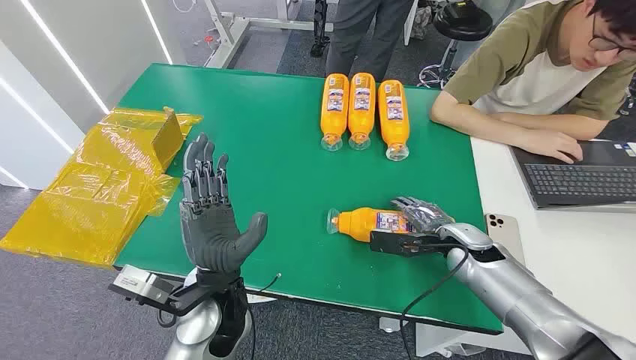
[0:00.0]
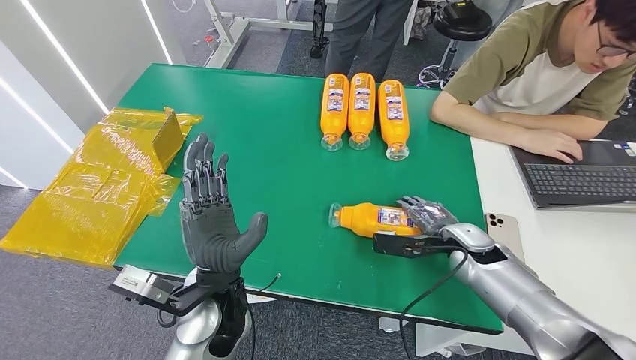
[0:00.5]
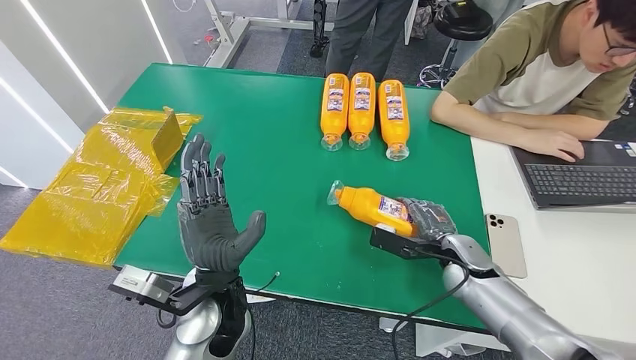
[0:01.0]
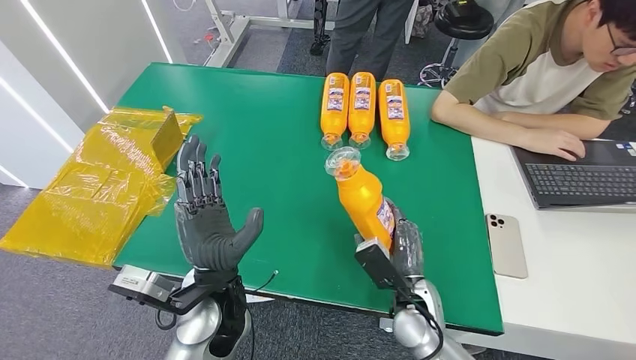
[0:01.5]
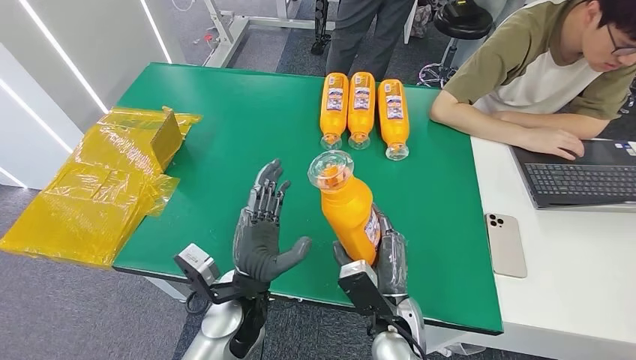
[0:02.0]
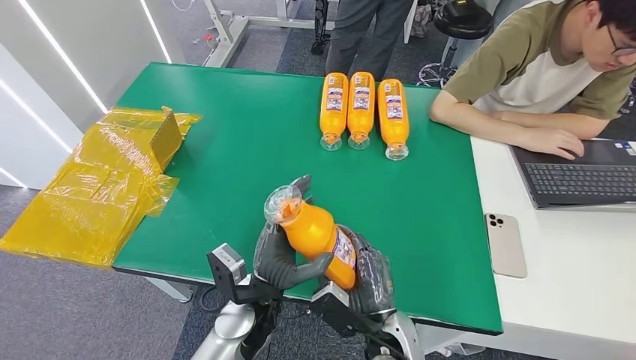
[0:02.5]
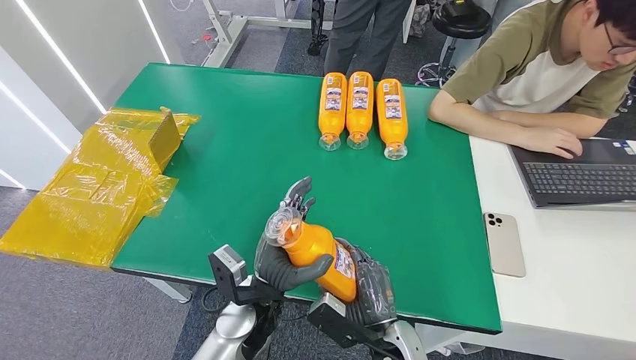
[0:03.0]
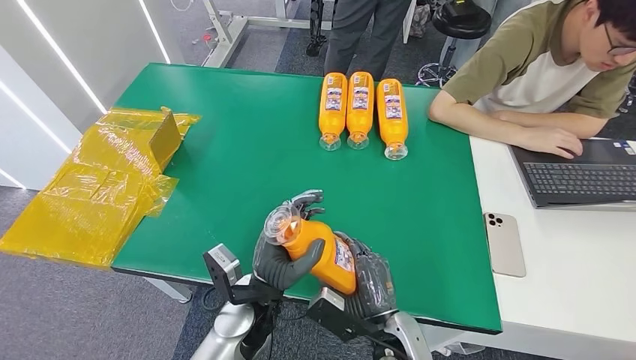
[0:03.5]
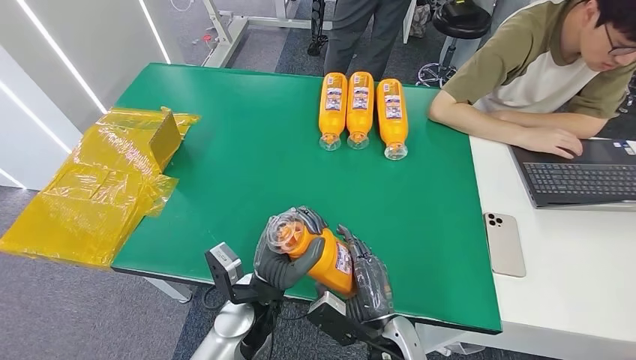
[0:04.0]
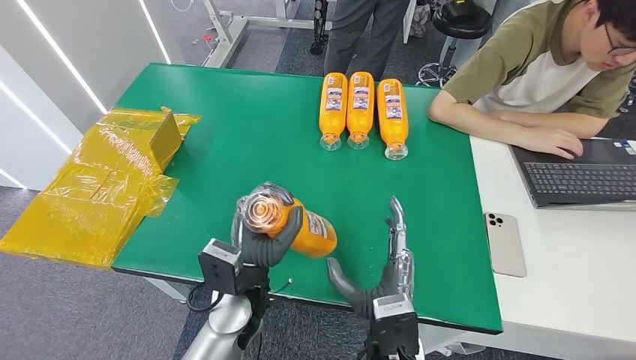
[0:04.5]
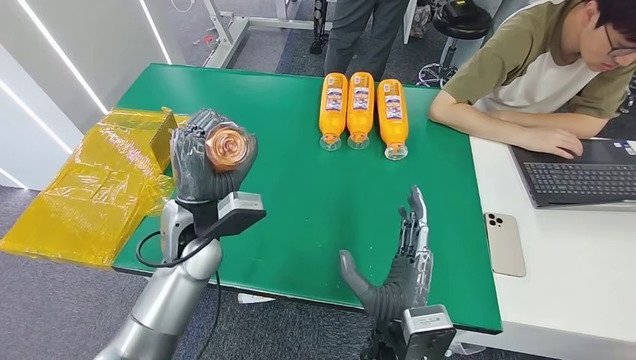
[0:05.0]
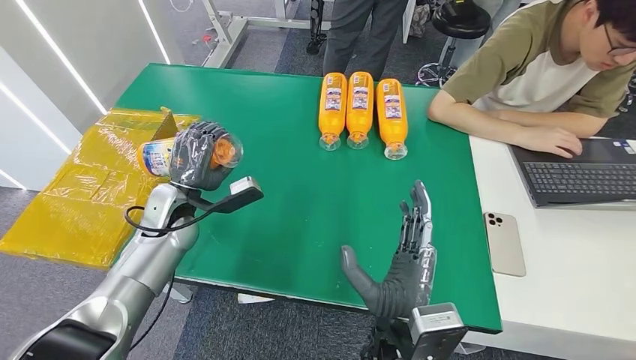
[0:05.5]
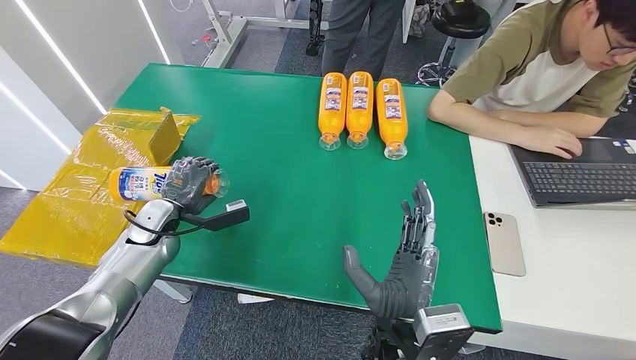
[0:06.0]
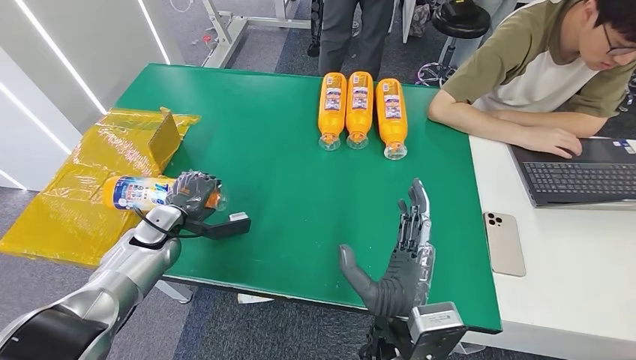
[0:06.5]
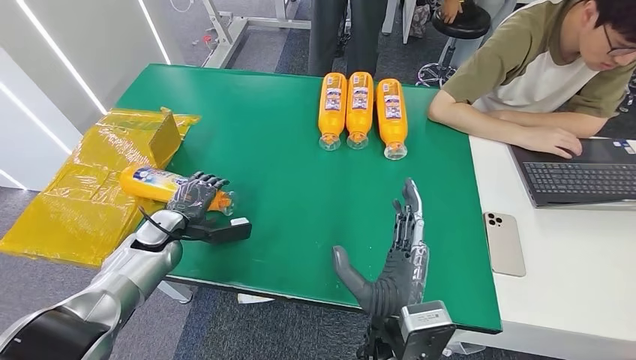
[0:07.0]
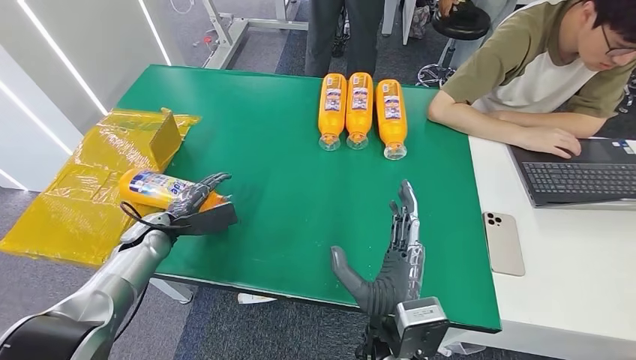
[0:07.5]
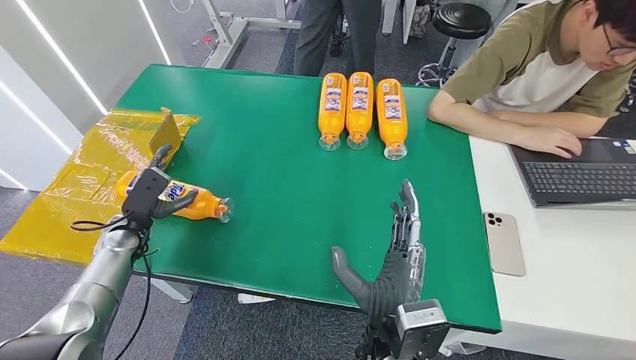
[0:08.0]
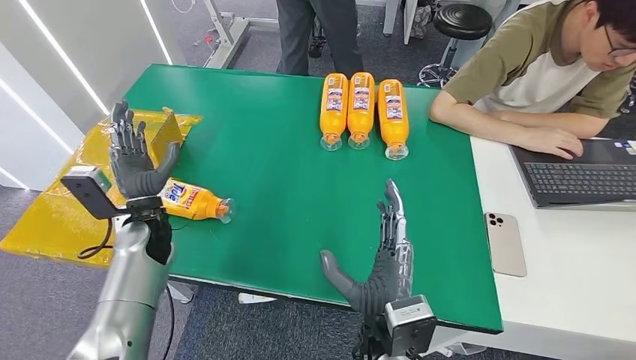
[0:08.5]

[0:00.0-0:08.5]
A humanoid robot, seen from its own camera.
Step, 0:00.0 to 0:02.5: Pick up the bottle from the table.
Step, 0:03.0 to 0:08.5: Turn the bottle to the front side.
0:04.0 to 0:06.5: The right hand goes some 10 cm upward. The left hand is displaced to the left and forward by some 30 cm.
0:06.5 to 0:08.5: The left hand ends up some 5 cm from where it was.

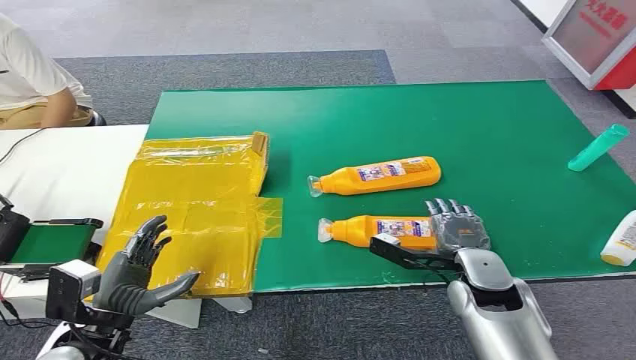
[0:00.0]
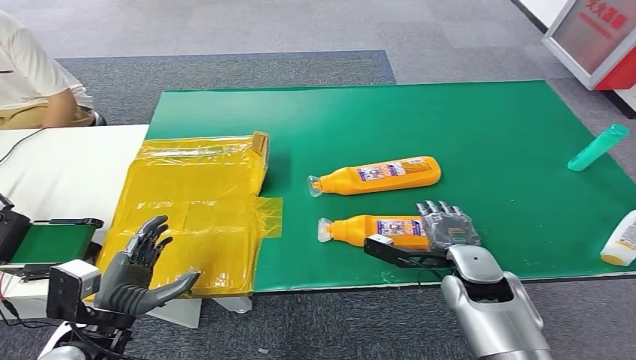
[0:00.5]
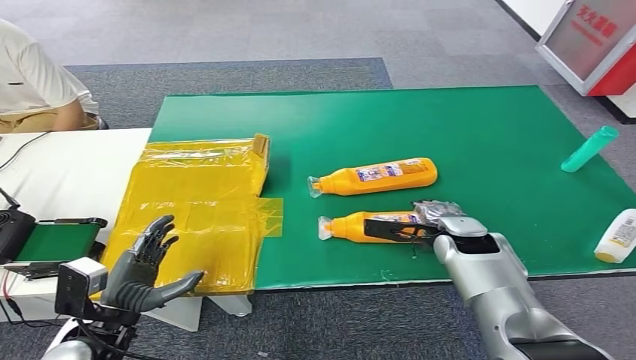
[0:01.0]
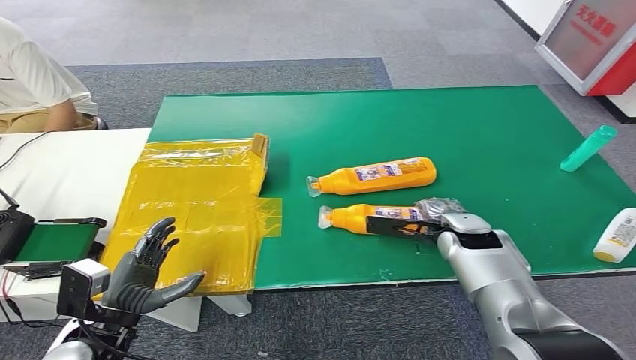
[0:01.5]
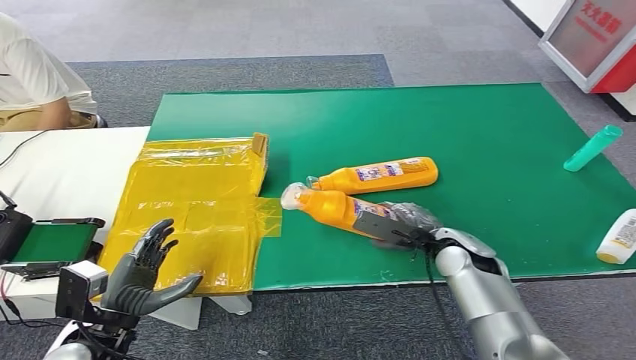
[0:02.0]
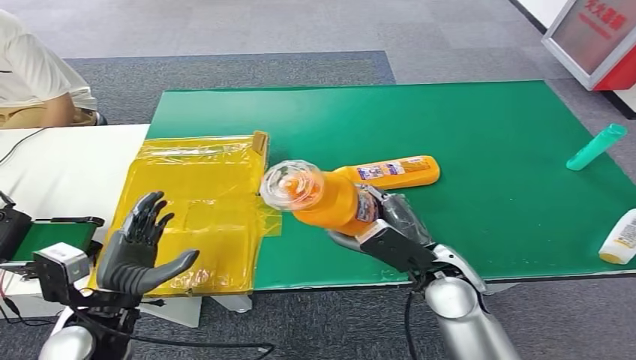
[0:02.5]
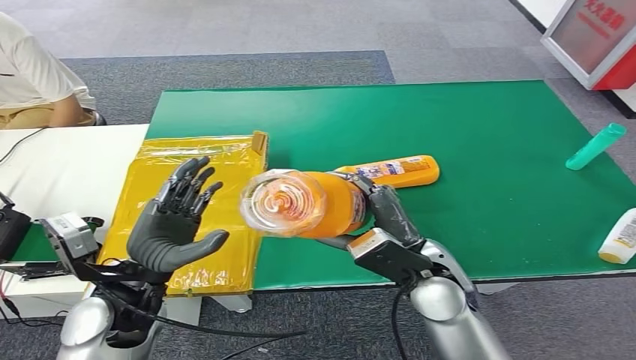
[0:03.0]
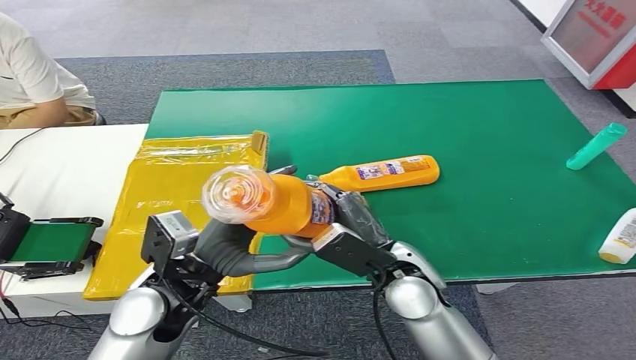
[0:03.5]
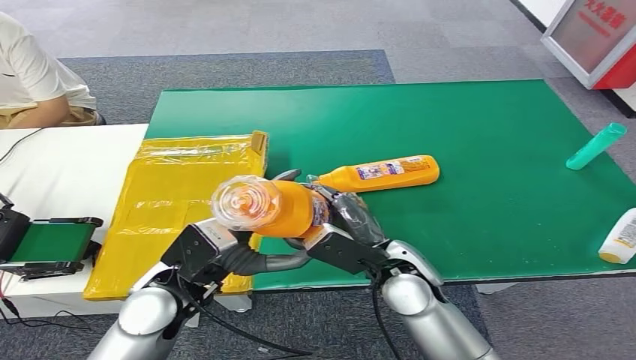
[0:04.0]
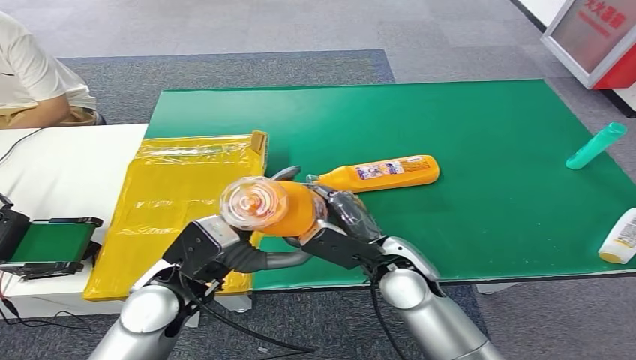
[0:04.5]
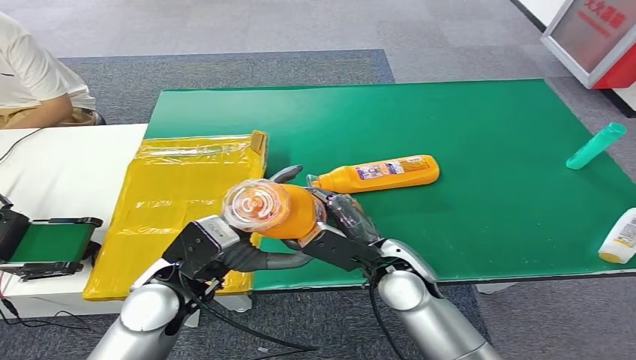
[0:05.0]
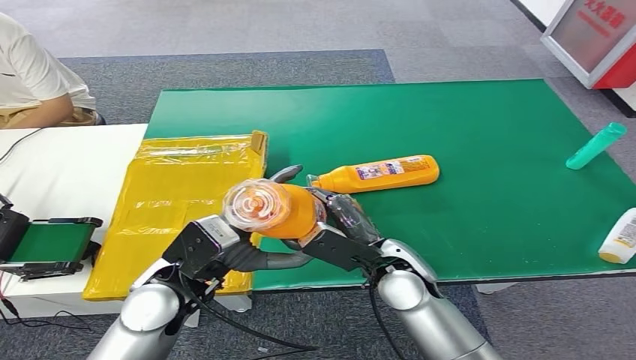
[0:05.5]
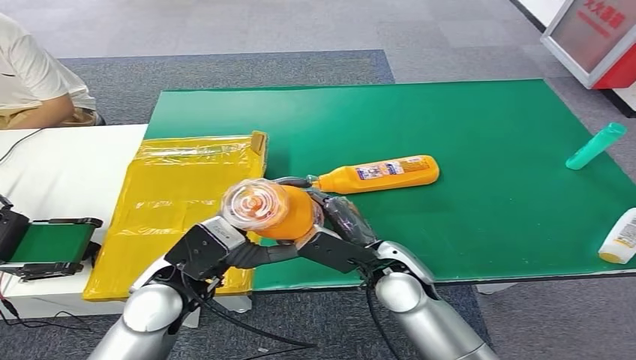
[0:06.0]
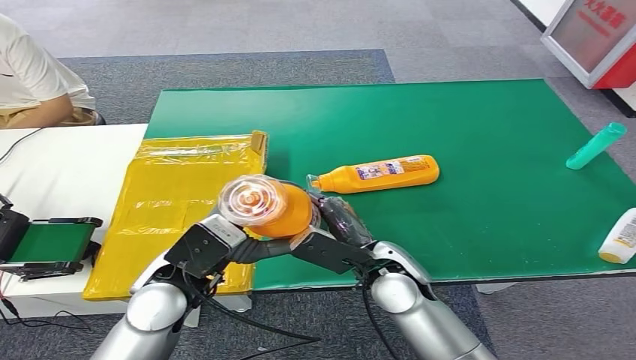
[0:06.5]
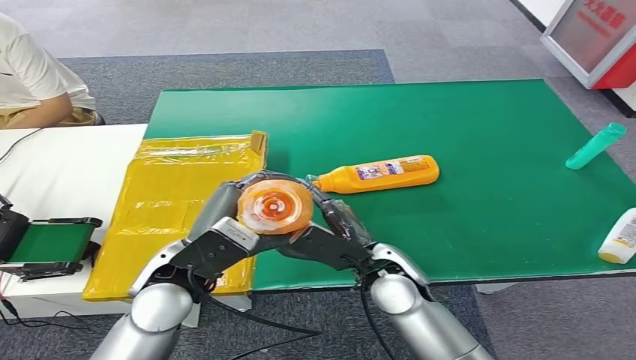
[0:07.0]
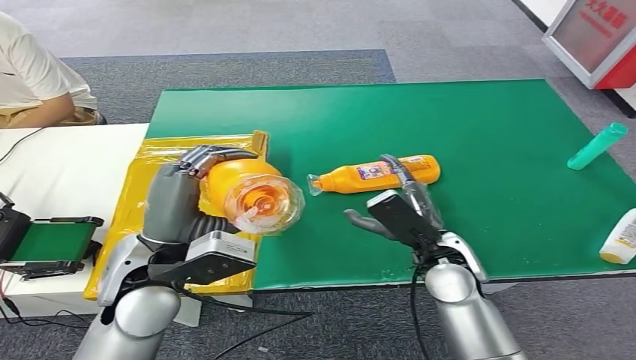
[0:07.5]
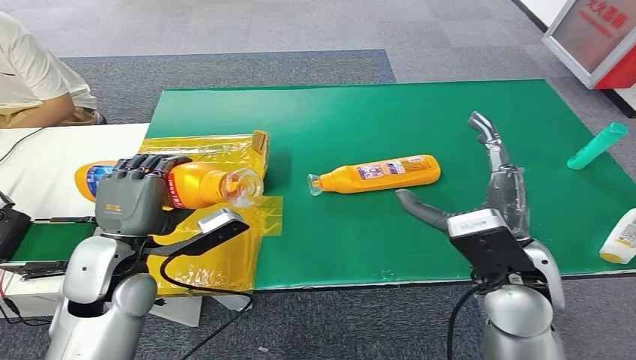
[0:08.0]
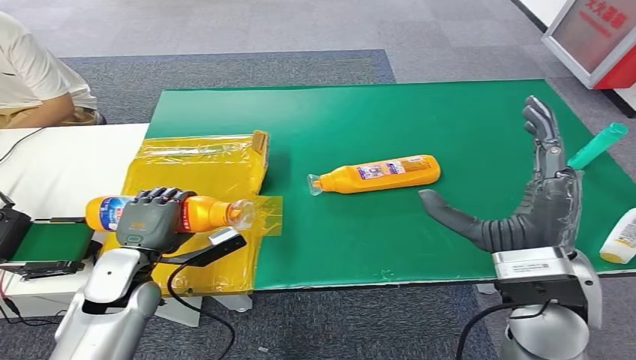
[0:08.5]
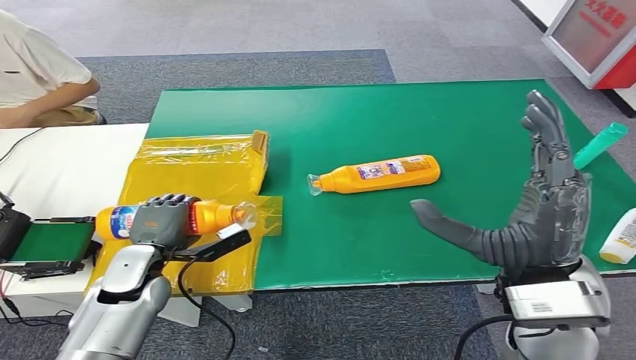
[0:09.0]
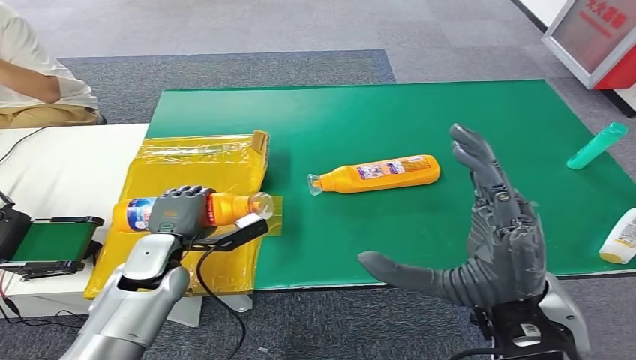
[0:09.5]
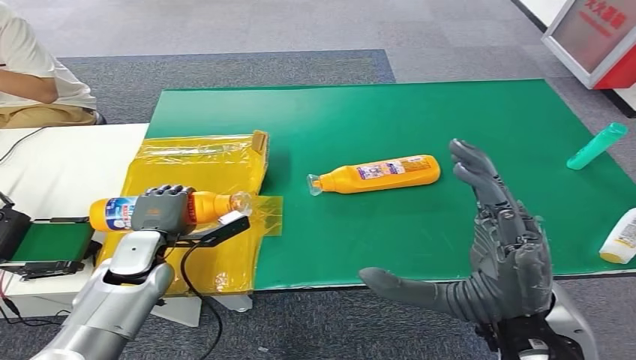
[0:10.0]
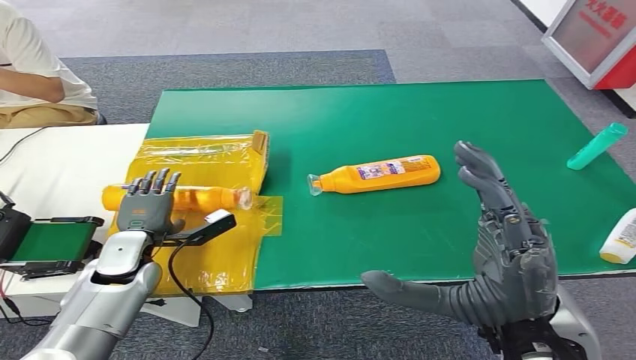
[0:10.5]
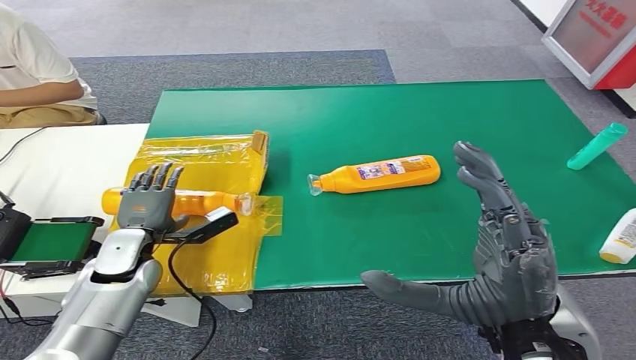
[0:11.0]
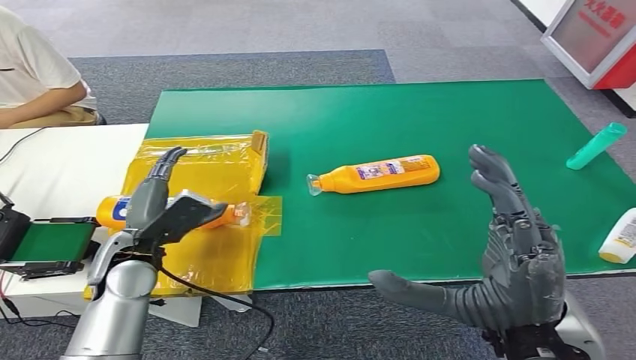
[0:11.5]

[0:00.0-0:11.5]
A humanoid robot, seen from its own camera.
Step, 0:00.0 to 0:02.5: Pick up the bottle from the table.
Step, 0:05.5 to 0:11.5: Turn the bottle to the front side.
0:04.0 to 0:06.0: There are only small adjustments of the hands.
0:06.0 to 0:07.5: The left hand shifts by some 5 cm. The right hand heads to the right, covering roughly 5 cm.
0:07.5 to 0:09.5: The right hand heads upward and backward, covering about 15 cm, while the left hand travels downward, forward and to the left by about 15 cm.
0:09.5 to 0:11.5: The left hand heads upward, covering roughly 5 cm.
